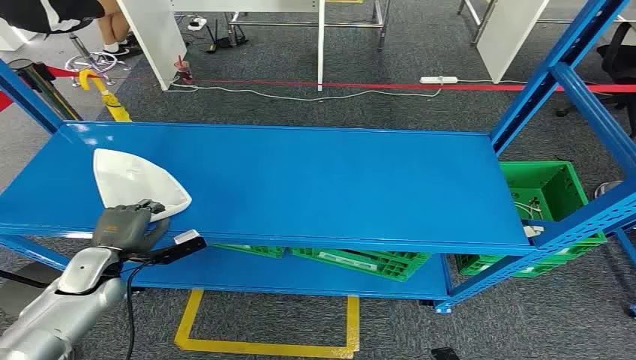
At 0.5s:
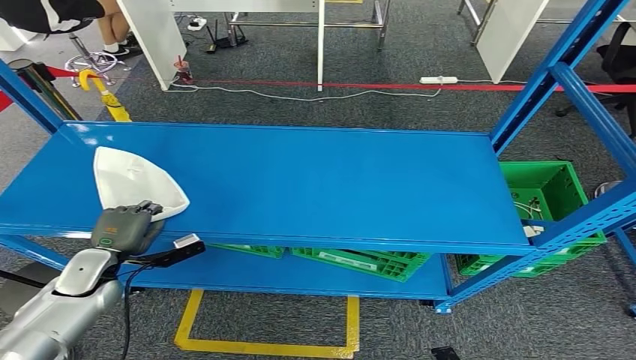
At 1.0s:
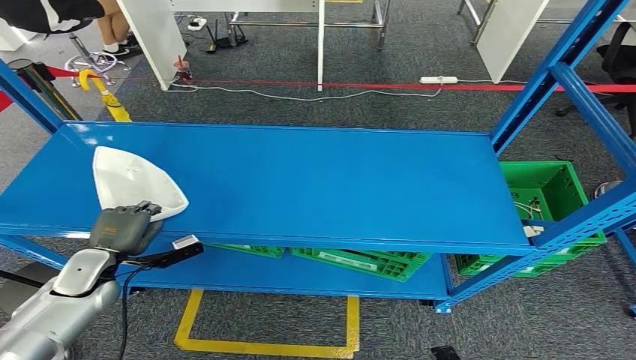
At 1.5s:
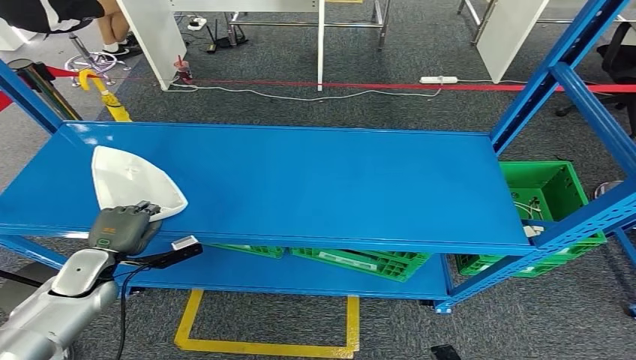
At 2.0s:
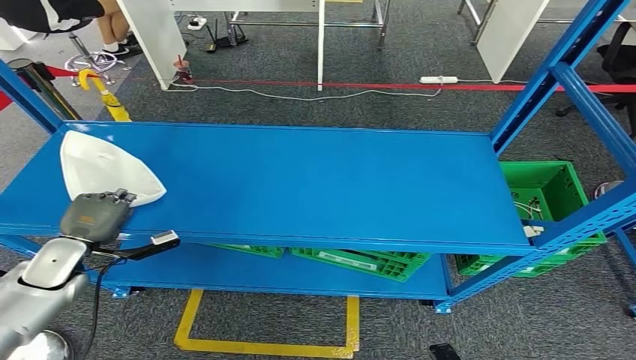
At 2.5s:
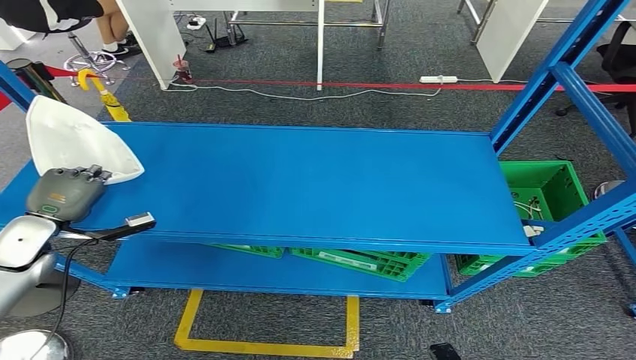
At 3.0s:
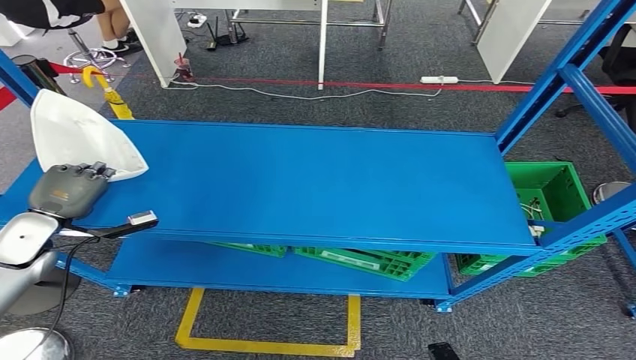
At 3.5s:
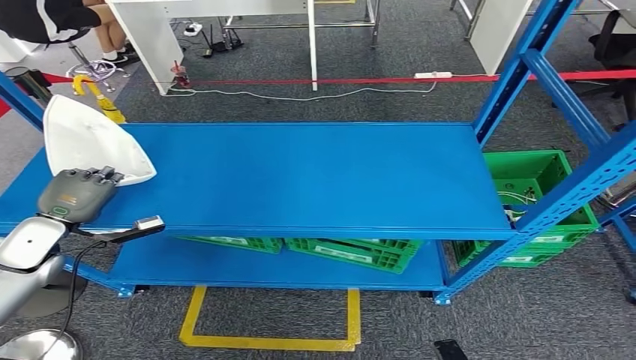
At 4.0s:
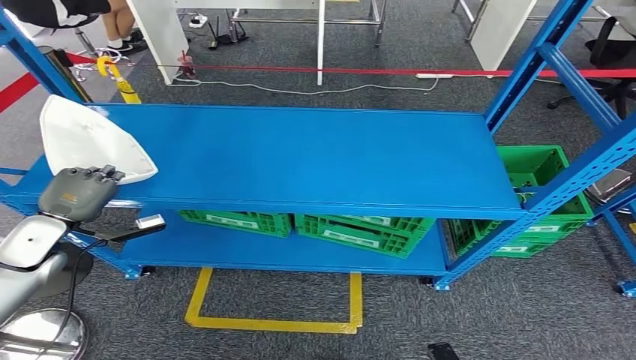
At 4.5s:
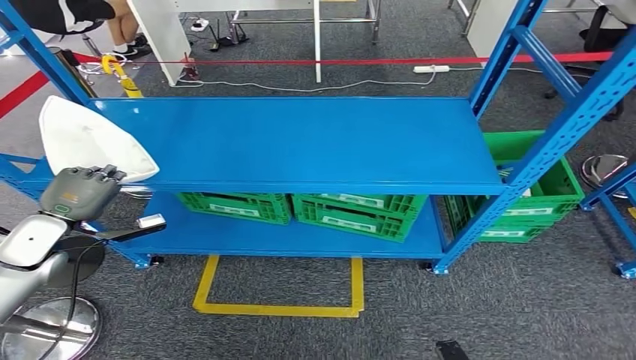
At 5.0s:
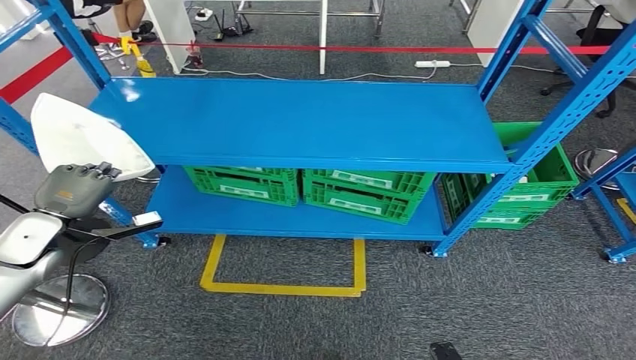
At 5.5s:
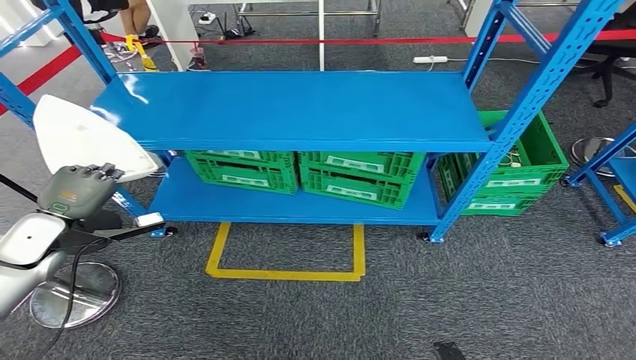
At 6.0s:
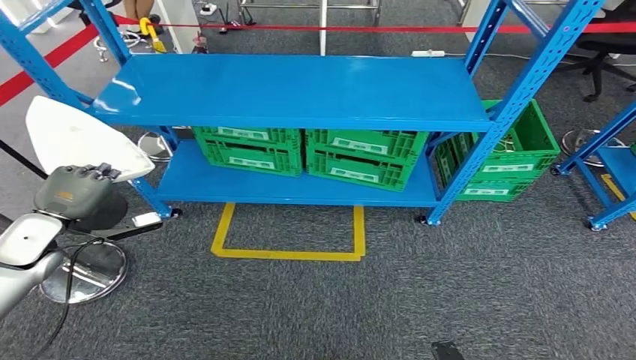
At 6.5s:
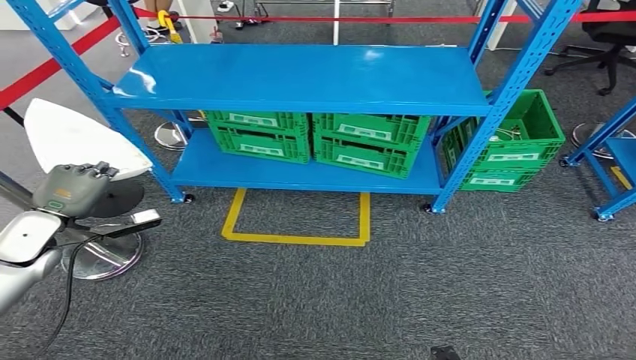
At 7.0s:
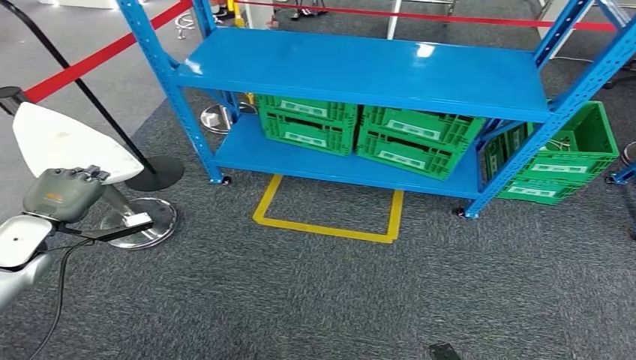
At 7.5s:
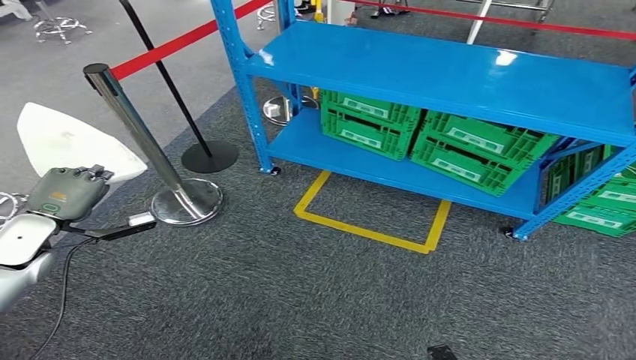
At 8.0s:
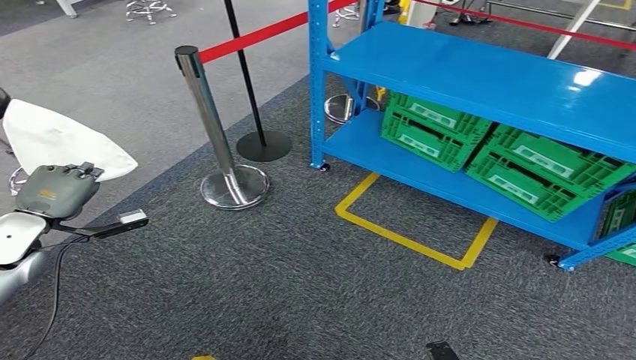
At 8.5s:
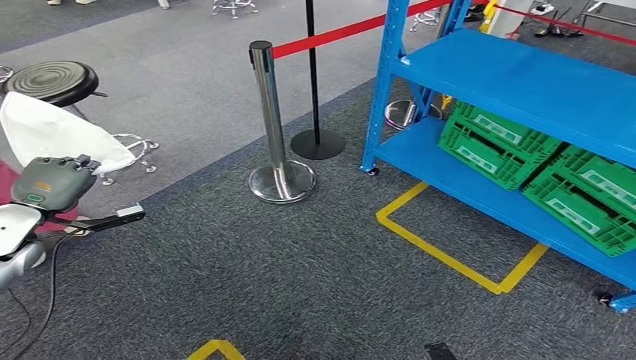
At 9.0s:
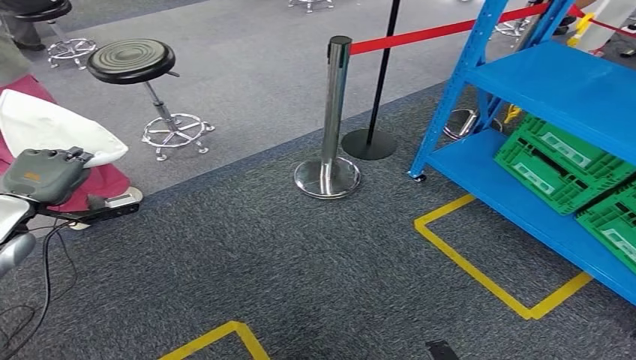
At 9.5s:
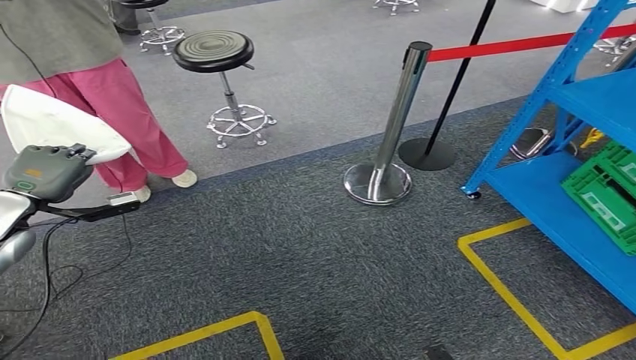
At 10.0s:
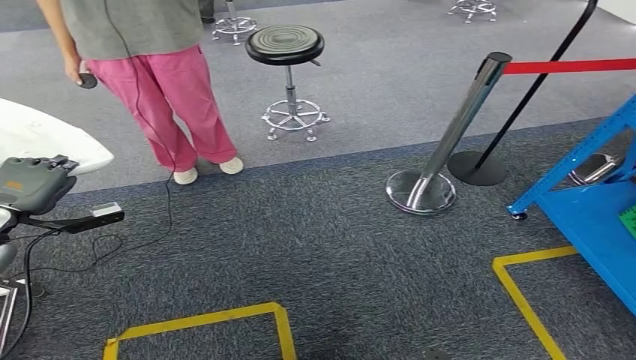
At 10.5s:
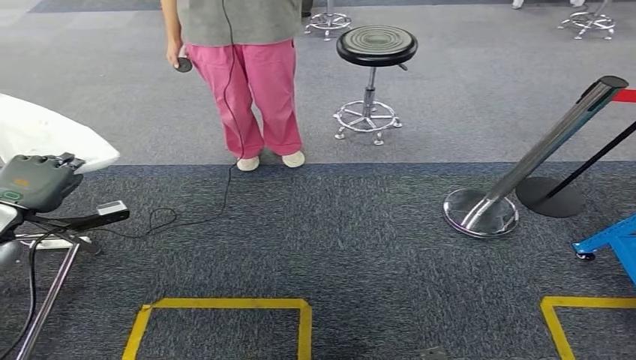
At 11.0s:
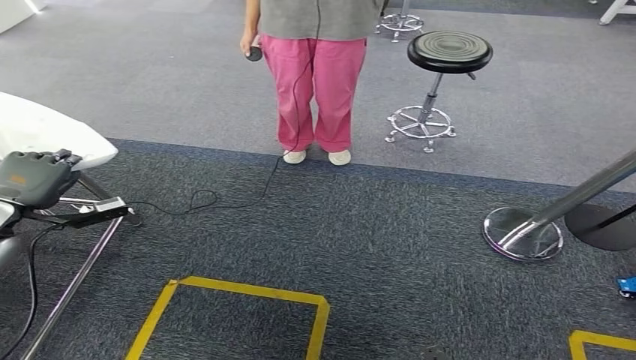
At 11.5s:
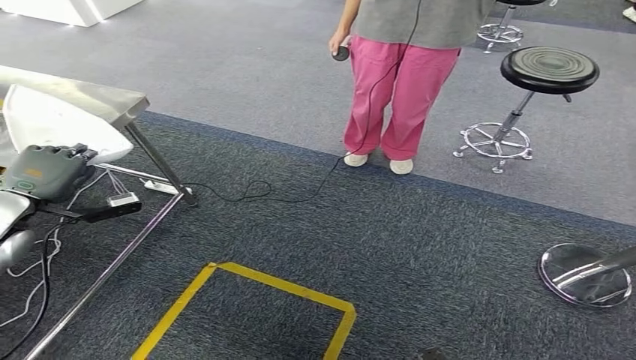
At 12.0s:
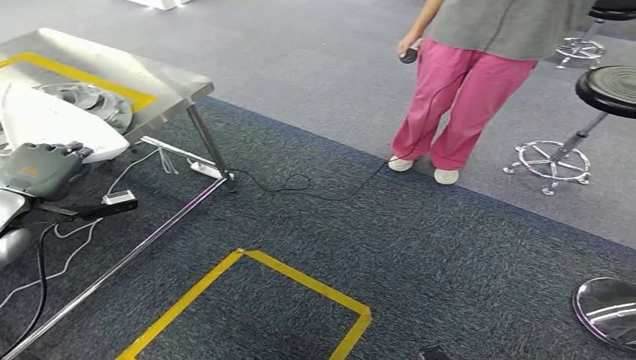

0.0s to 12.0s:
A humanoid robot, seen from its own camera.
Step, 0.0s to 3.5s: Take small components from the rack.

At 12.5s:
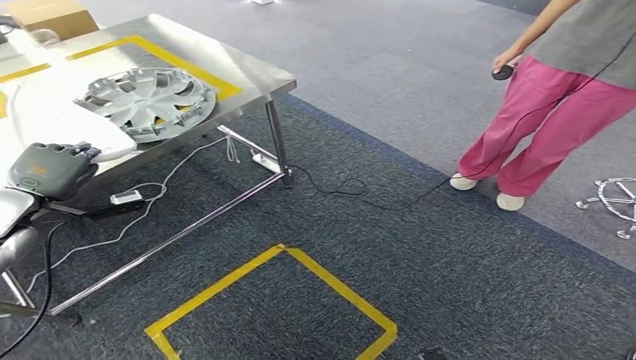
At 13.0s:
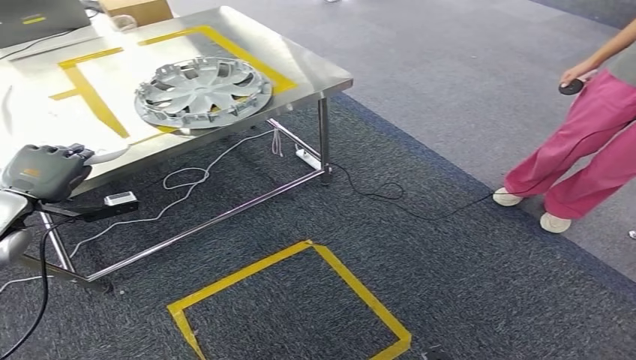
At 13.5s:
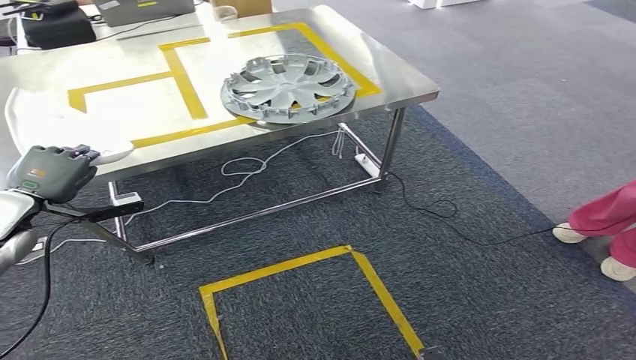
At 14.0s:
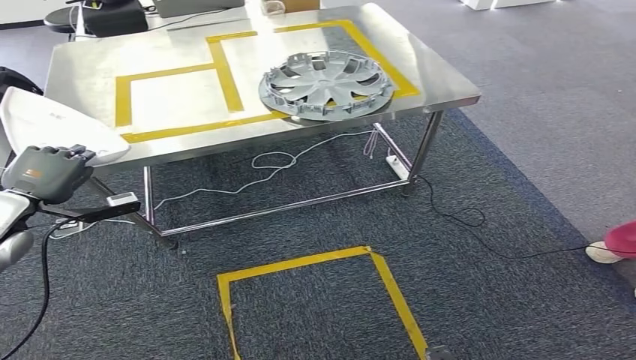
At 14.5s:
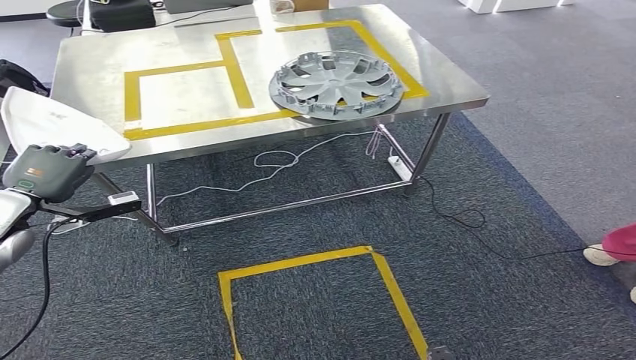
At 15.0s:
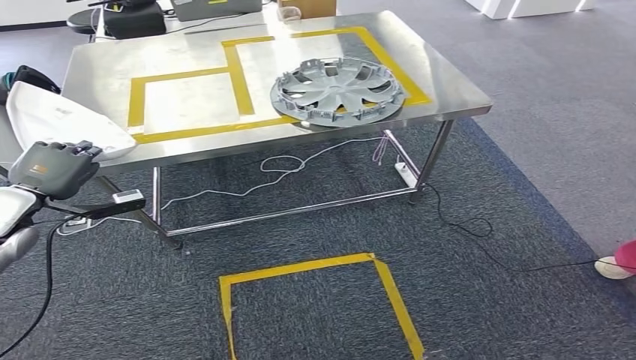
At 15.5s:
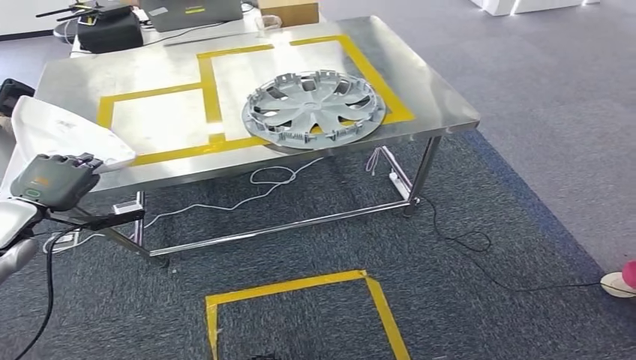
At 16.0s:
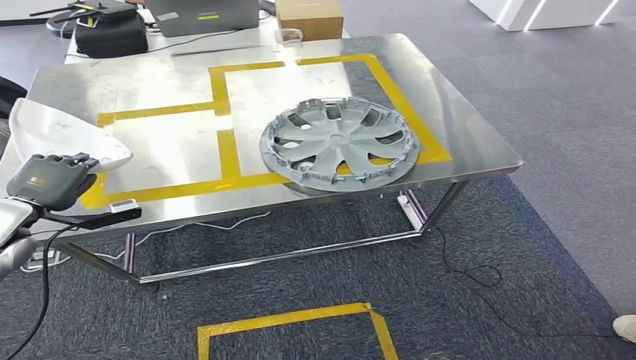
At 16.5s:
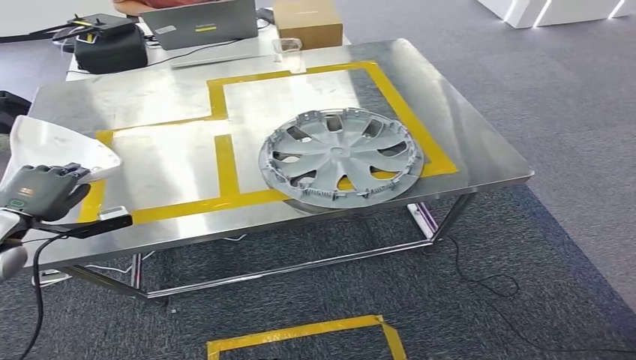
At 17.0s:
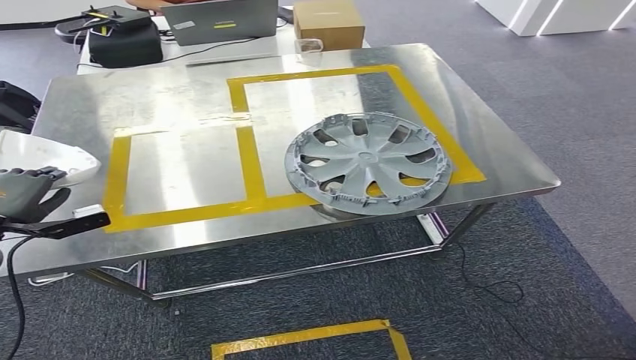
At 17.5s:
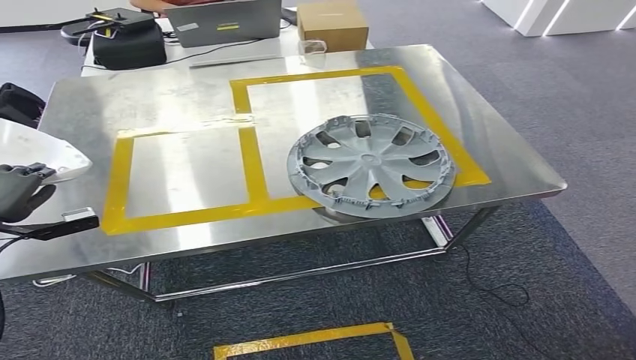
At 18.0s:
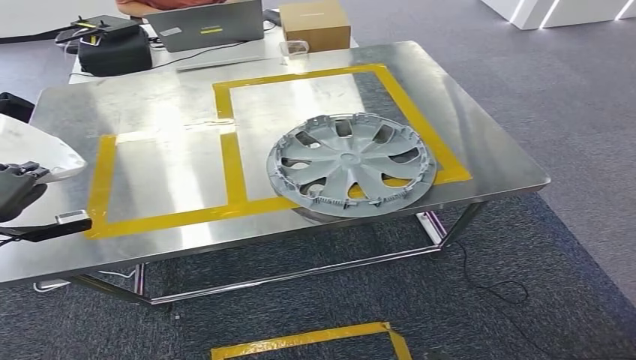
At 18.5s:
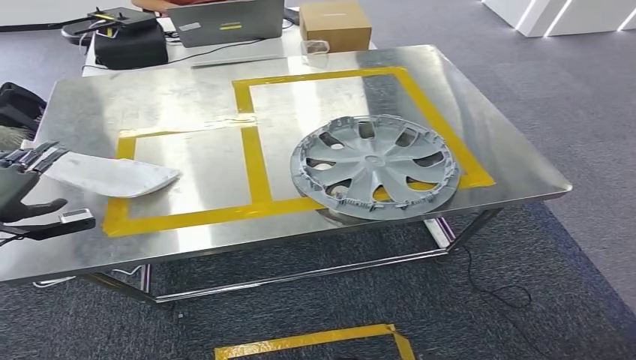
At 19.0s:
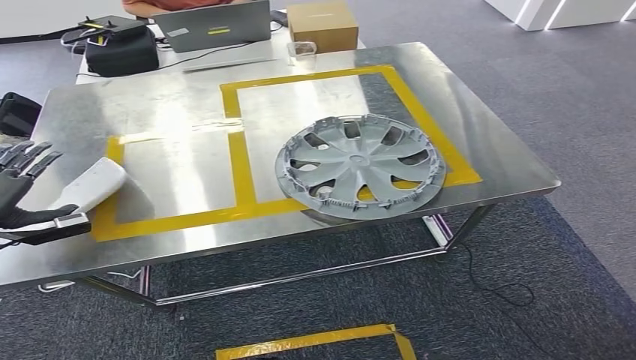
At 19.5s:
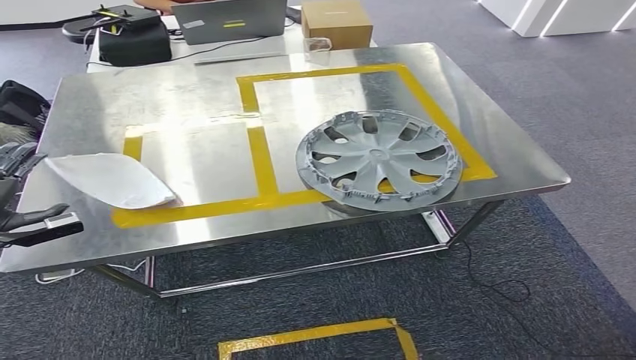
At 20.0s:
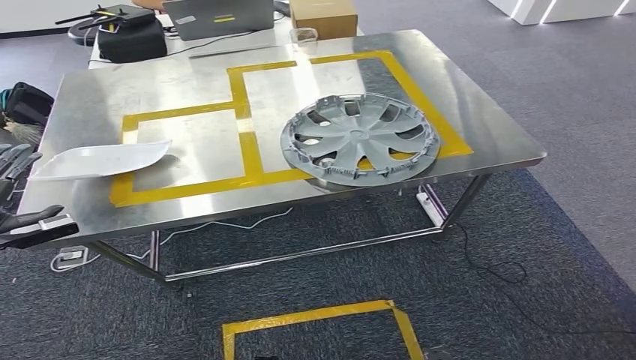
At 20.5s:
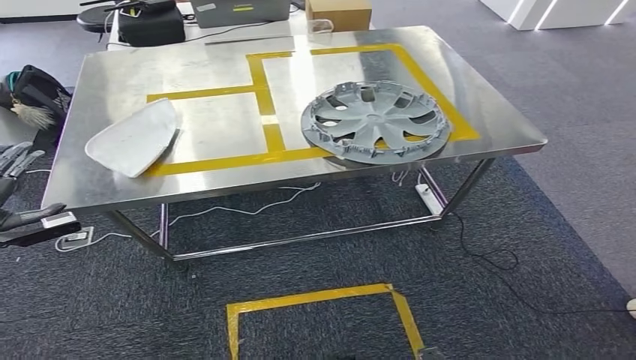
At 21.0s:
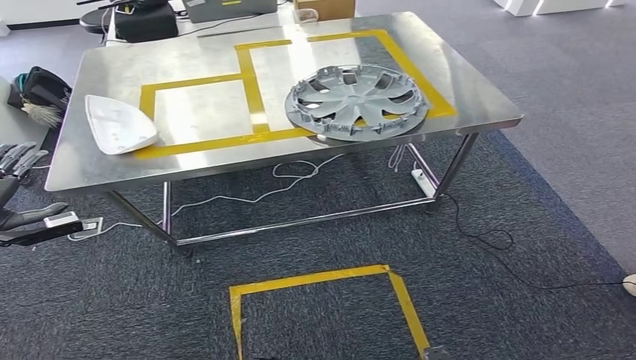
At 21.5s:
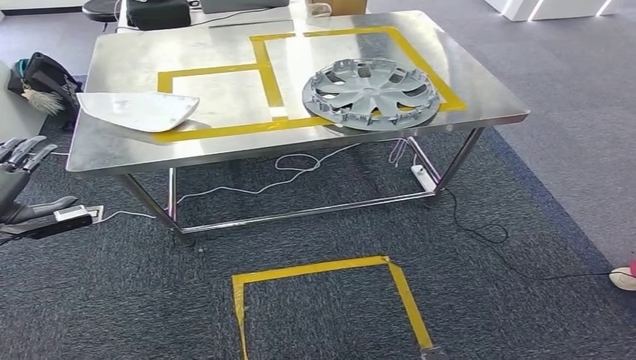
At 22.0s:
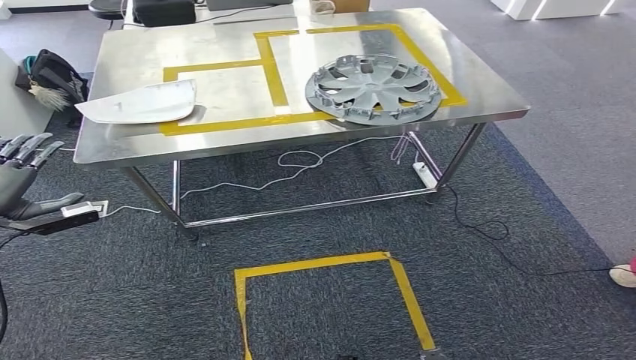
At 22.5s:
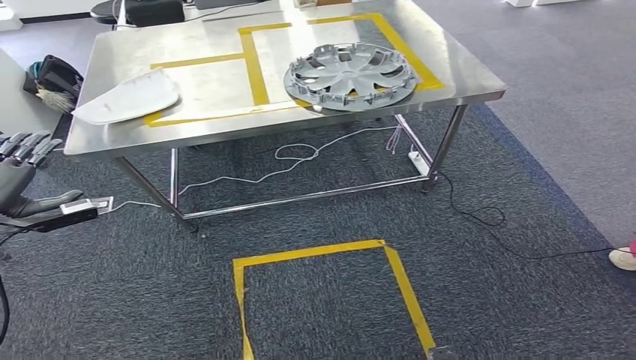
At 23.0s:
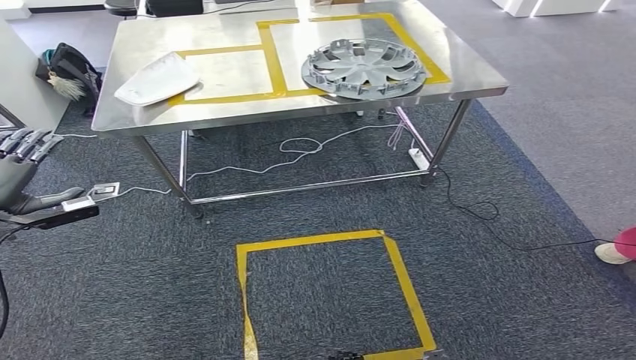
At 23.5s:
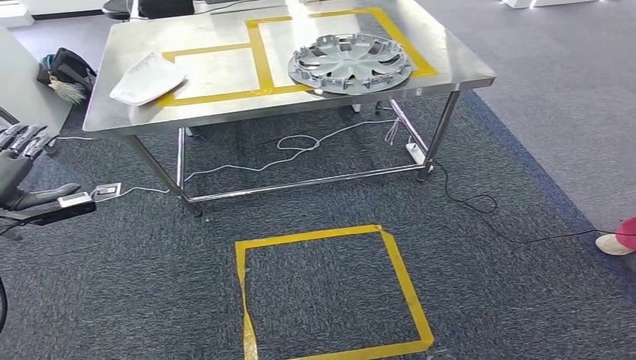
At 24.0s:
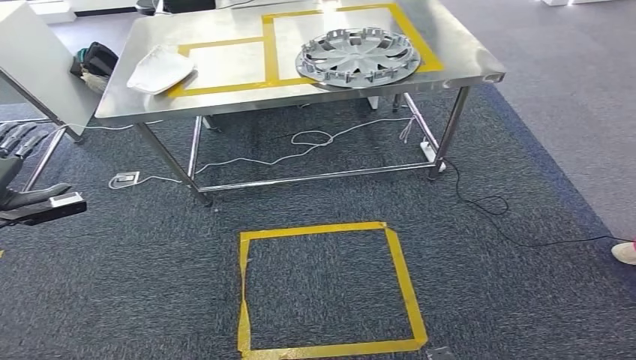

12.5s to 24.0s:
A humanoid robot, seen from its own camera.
Step, 12.5s to 15.0s: Move the small parts to the workbench.
Step, 16.0s to 22.0s: Insert the small parts into the corresponding holes on the workbench.
